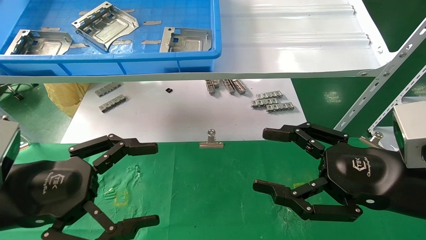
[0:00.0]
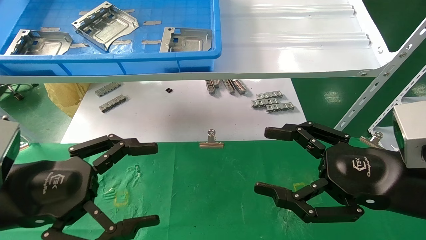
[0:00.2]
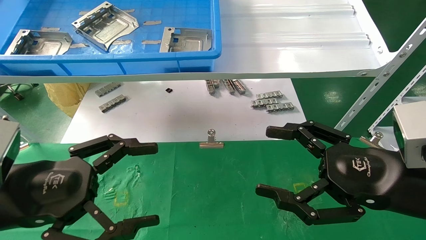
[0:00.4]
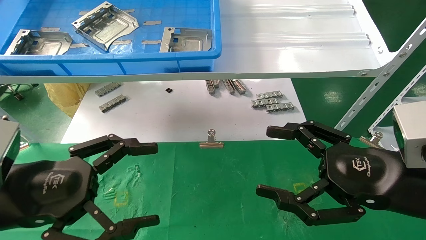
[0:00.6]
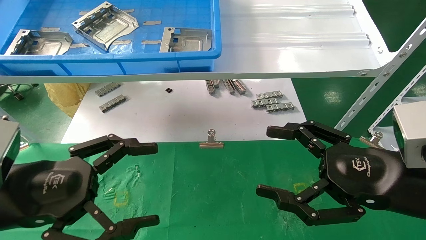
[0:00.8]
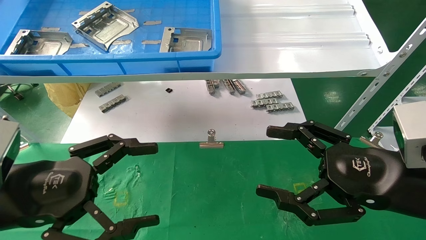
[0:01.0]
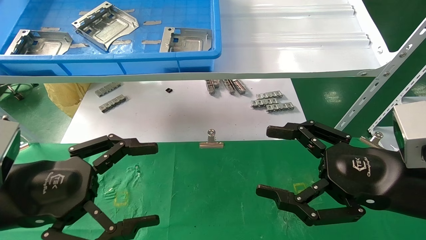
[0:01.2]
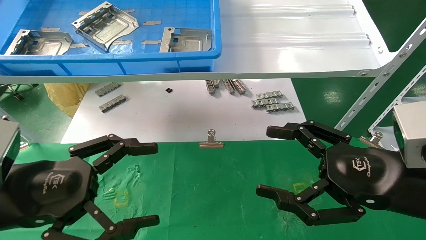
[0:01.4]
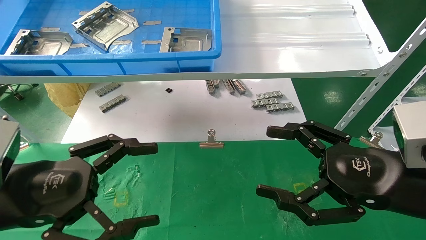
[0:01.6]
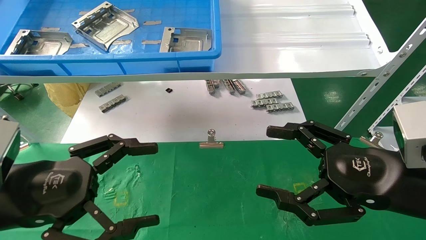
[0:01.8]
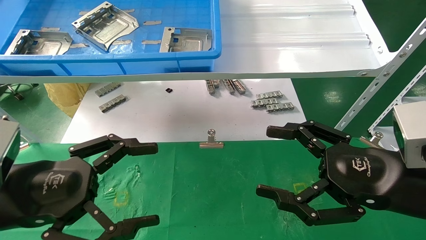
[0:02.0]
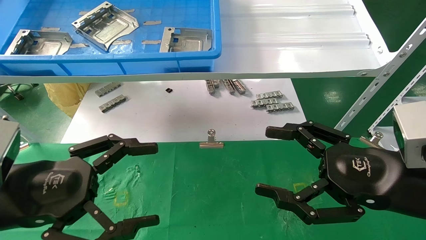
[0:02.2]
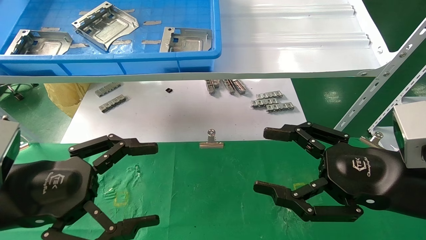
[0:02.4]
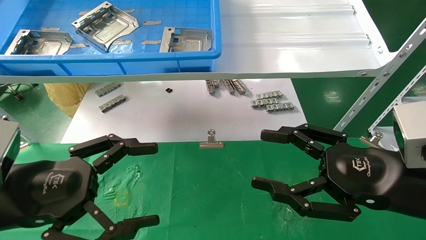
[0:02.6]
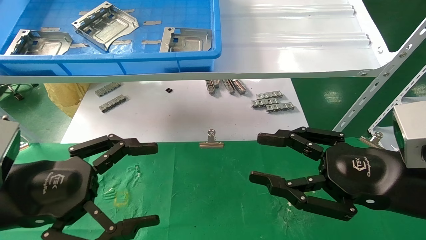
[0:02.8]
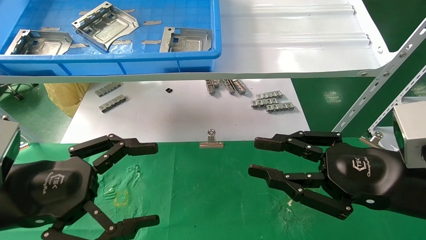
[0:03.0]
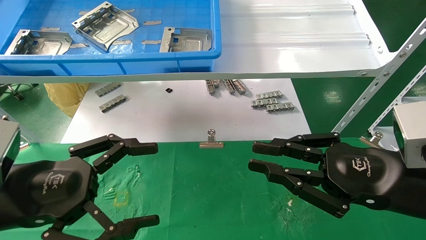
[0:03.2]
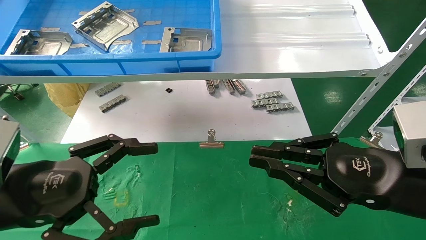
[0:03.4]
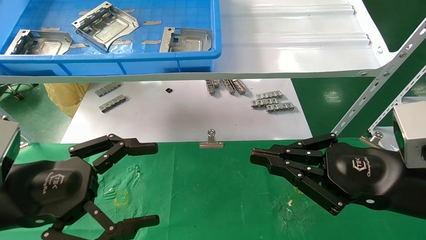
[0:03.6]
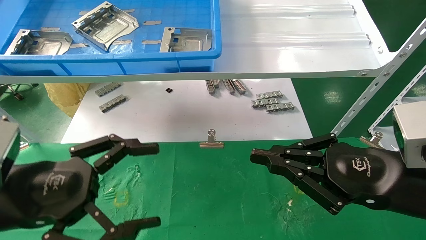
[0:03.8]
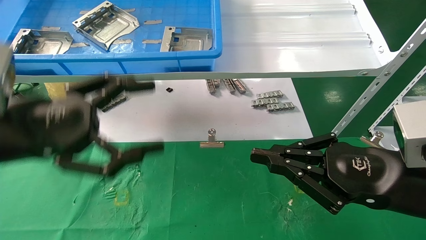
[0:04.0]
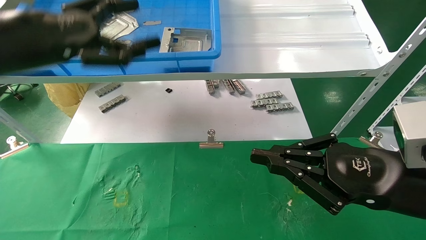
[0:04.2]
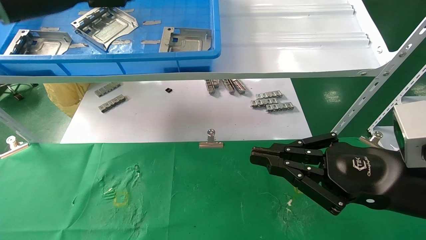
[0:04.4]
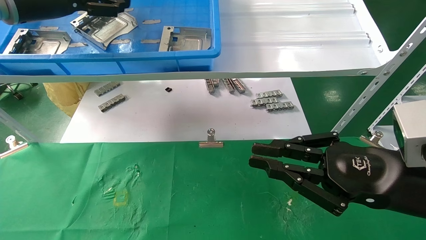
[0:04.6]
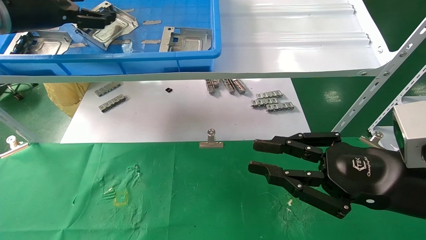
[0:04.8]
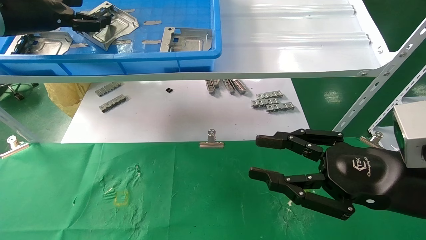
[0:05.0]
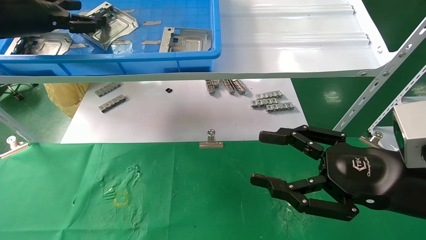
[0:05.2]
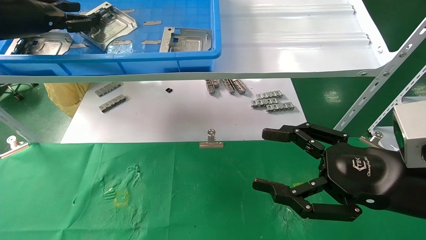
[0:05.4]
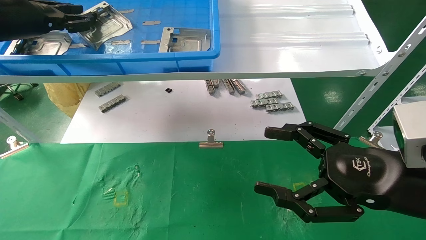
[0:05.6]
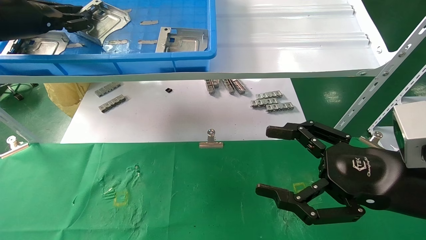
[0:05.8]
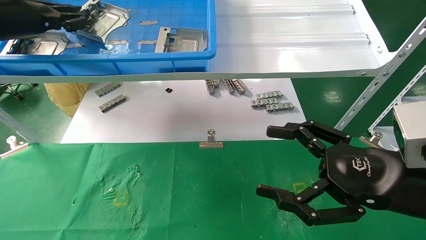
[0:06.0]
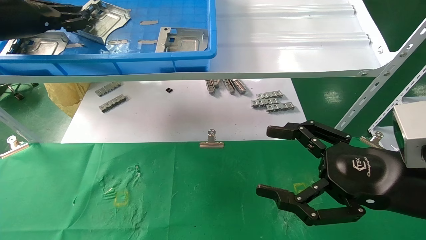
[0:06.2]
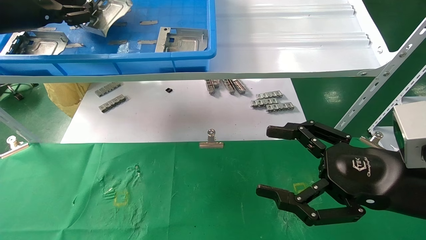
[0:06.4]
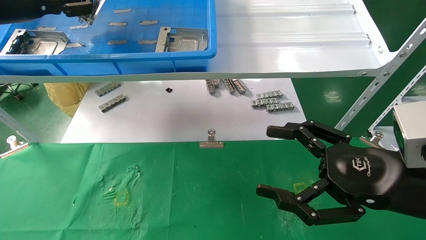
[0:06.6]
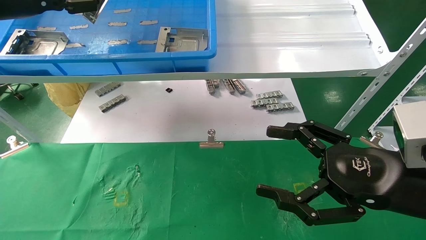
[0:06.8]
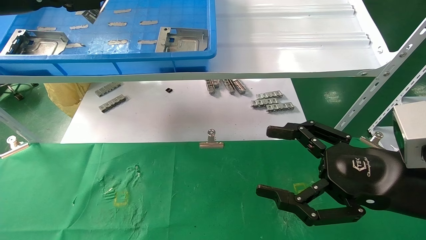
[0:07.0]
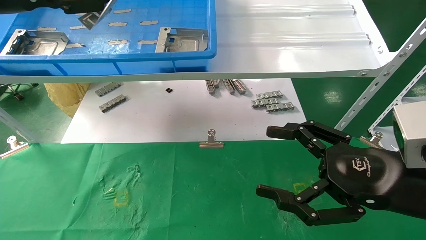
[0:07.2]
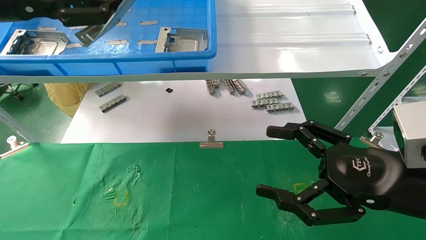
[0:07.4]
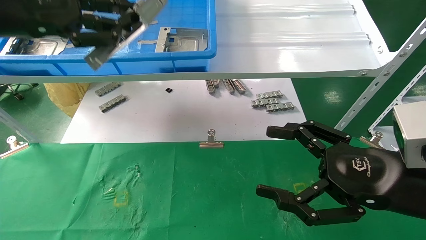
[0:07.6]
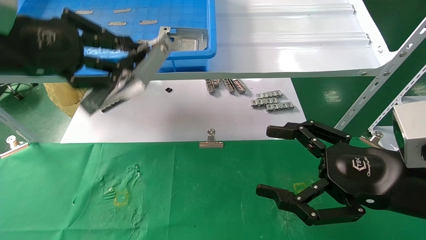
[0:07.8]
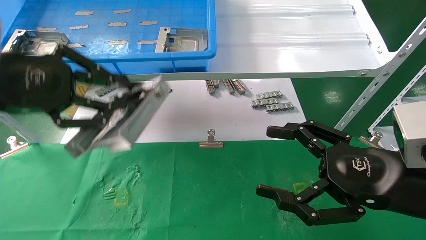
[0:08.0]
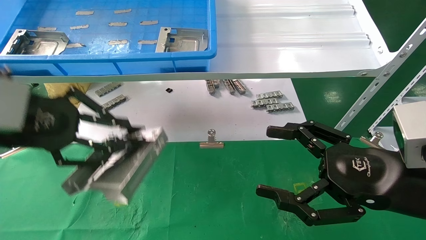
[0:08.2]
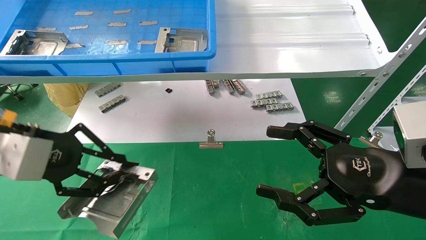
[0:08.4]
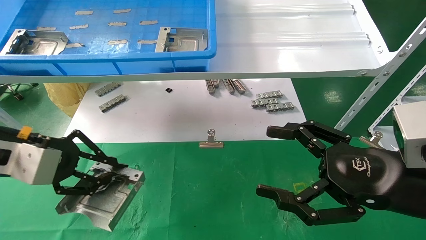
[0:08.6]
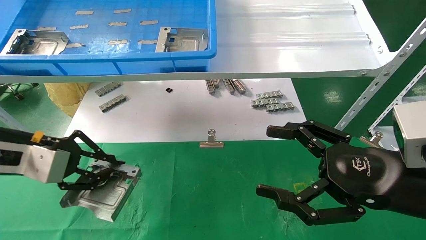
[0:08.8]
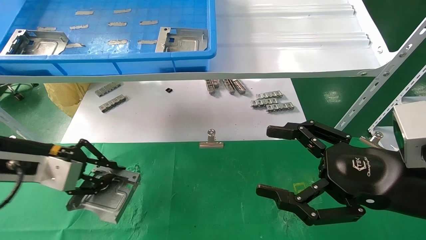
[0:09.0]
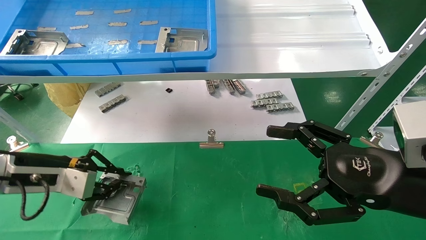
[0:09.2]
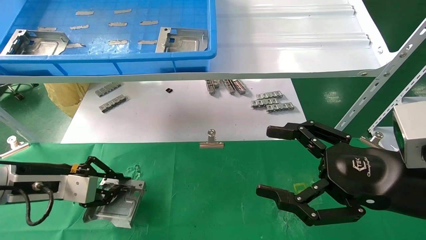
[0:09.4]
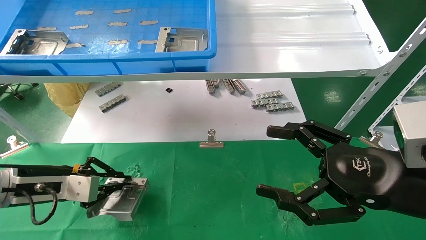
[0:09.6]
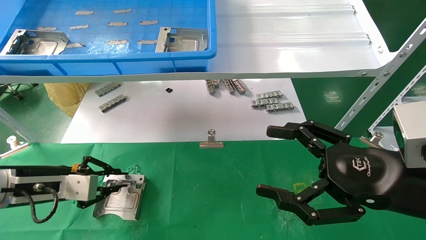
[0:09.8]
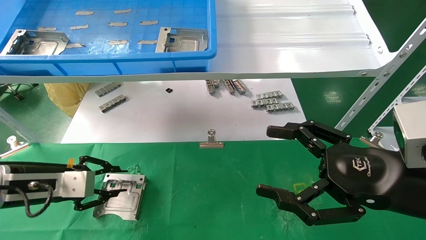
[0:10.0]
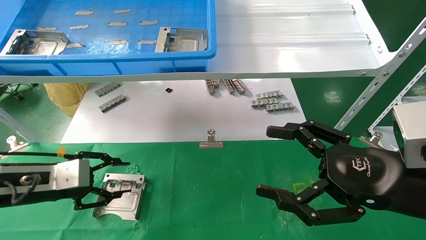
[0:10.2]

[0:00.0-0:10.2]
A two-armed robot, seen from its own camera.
Task of the whole recording: use the mechanical arm to pick up the parts and place them on the table.
Step, 0:04.2 to 0:05.8: Pick up the hard drive bracket from the feeding area.
Step, 0:06.0 to 0:09.8: Place the hard drive bracket into the box.
0:00.0 to 0:01.4: The two grippers keep their place.
0:01.4 to 0:03.0: The right gripper closes its fingers.
0:03.0 to 0:04.4: The right gripper closes. The left gripper heads upward and forward, covering approximately 25 cm.
0:04.4 to 0:05.8: The right gripper opens its fingers; the left gripper travels to the left by approximately 5 cm, and closes its fingers.
0:05.8 to 0:07.2: The left gripper moves backward, about 10 cm.
0:07.2 to 0:08.8: The left gripper moves downward, approximately 20 cm.
0:08.8 to 0:10.2: The left gripper goes approximately 10 cm downward, and opens.

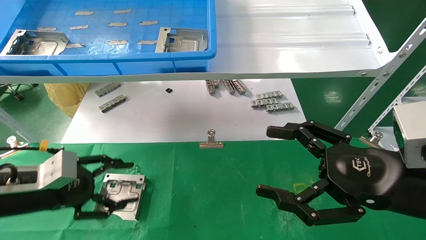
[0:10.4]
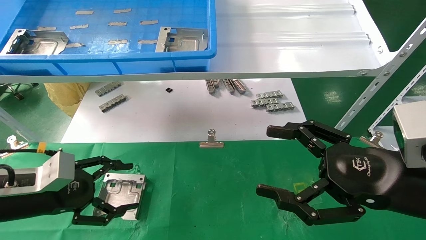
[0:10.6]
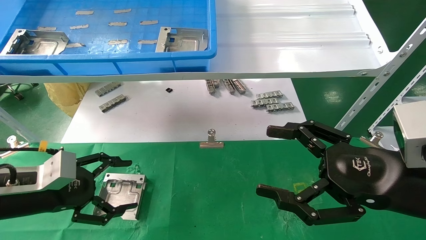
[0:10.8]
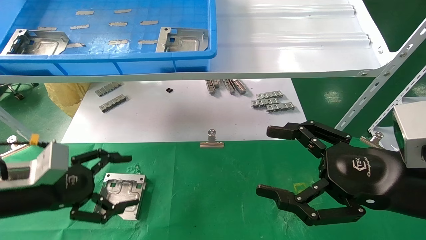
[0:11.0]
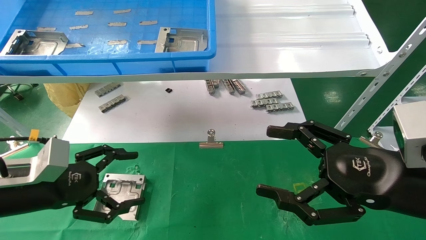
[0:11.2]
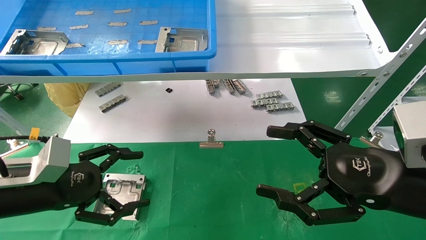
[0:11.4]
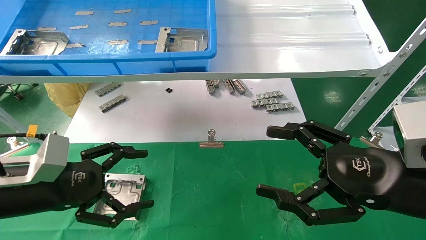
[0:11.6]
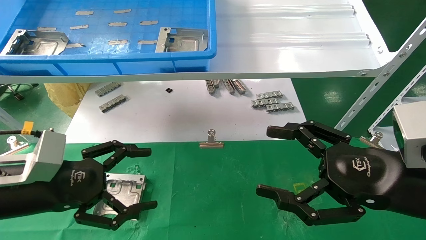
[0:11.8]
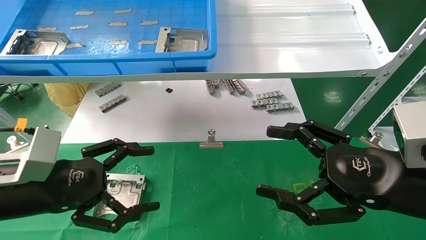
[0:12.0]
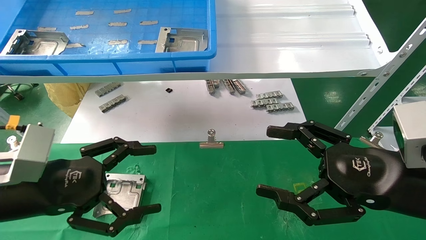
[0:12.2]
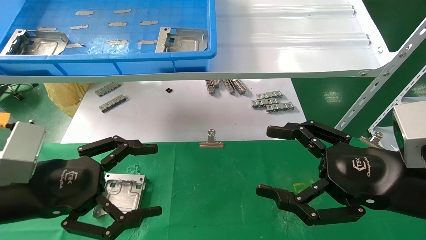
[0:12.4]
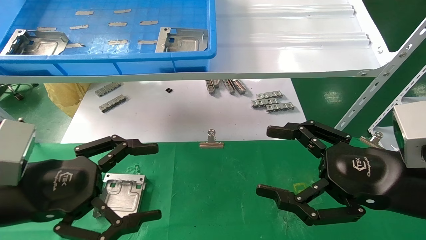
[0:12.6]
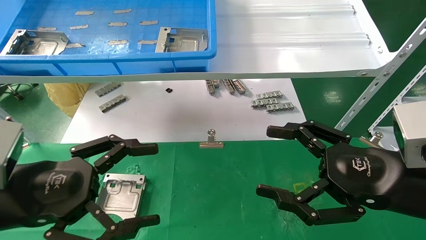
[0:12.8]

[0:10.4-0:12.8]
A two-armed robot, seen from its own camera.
Task of the whole recording: use the mechanical arm to pick up the parts and place them on the table.
0:10.4 to 0:11.6: The left gripper ends up some 5 cm from where it was, and opens its fingers.
0:11.6 to 0:12.8: The left gripper goes some 5 cm backward.
